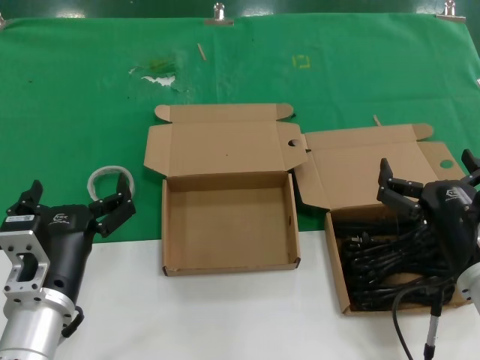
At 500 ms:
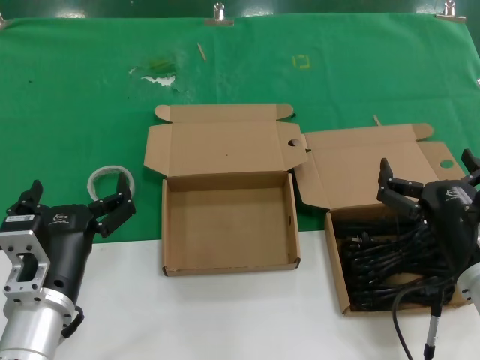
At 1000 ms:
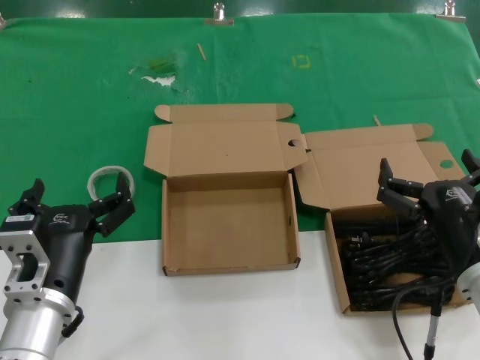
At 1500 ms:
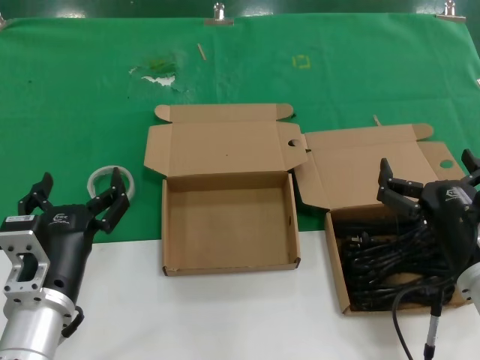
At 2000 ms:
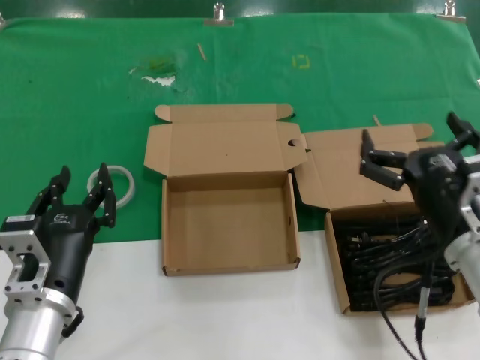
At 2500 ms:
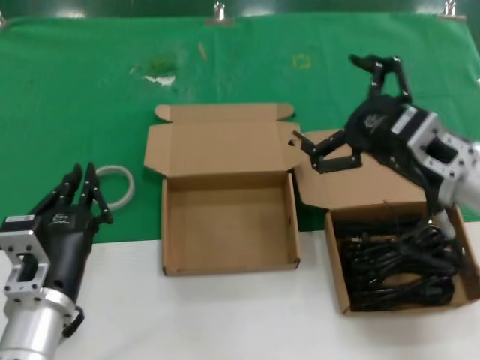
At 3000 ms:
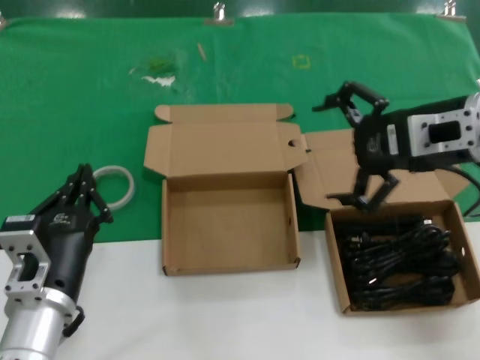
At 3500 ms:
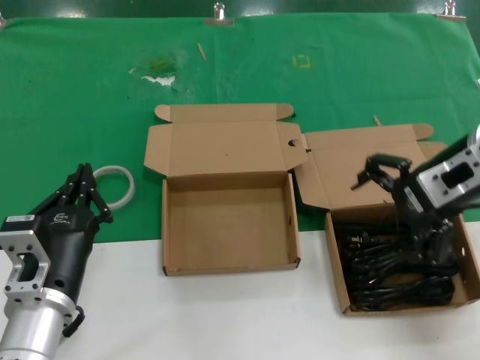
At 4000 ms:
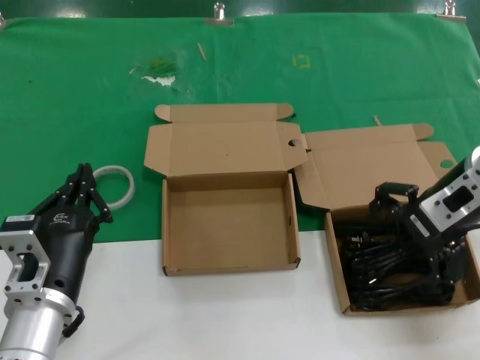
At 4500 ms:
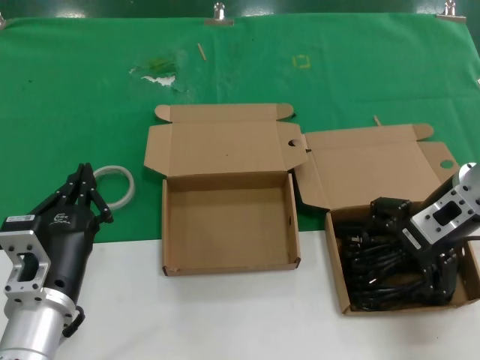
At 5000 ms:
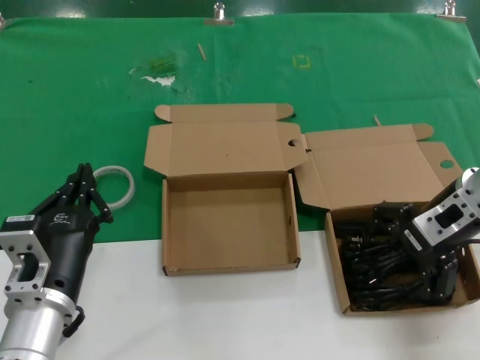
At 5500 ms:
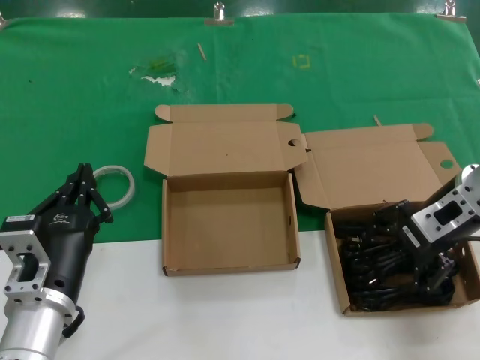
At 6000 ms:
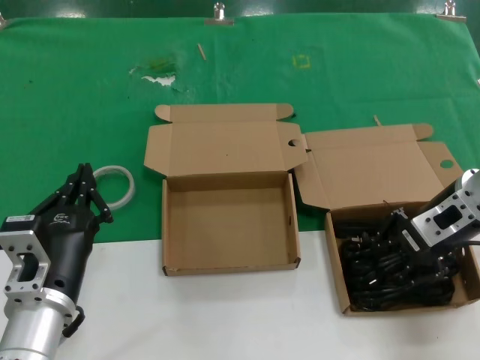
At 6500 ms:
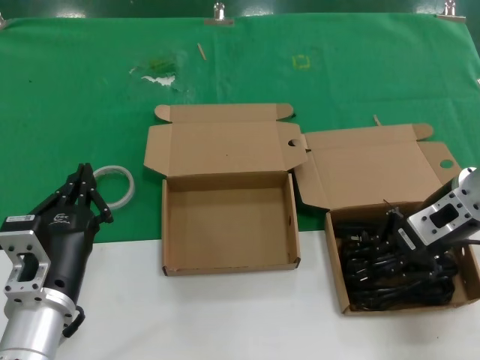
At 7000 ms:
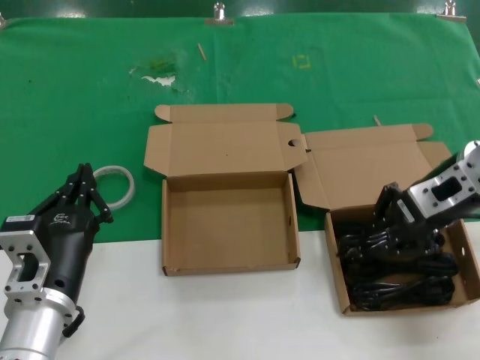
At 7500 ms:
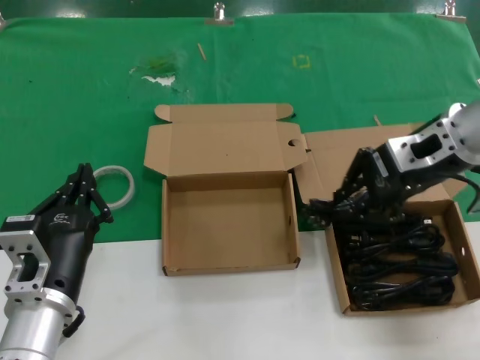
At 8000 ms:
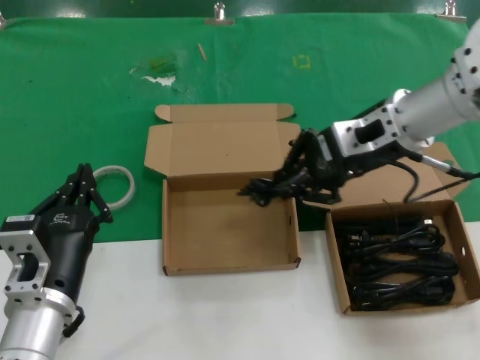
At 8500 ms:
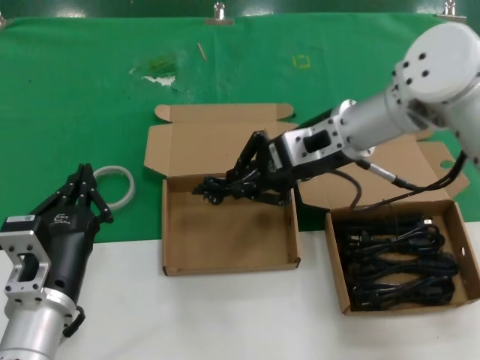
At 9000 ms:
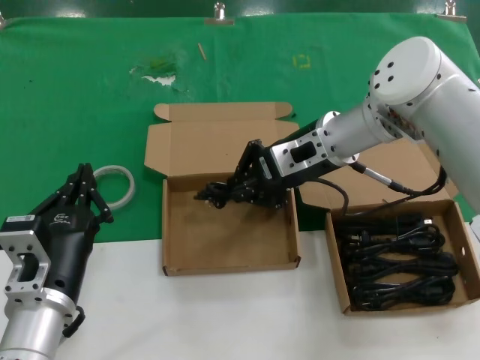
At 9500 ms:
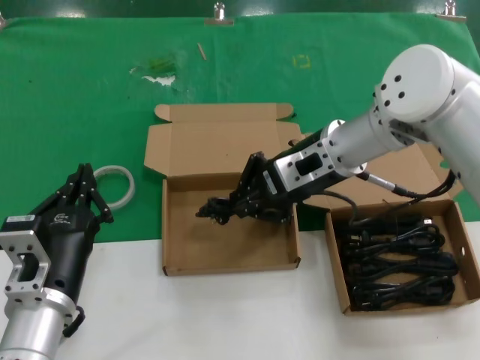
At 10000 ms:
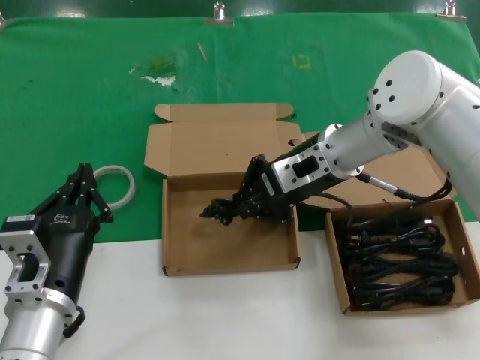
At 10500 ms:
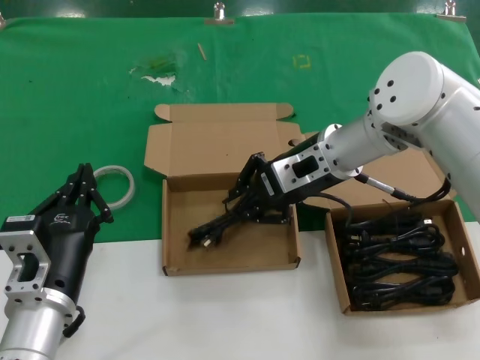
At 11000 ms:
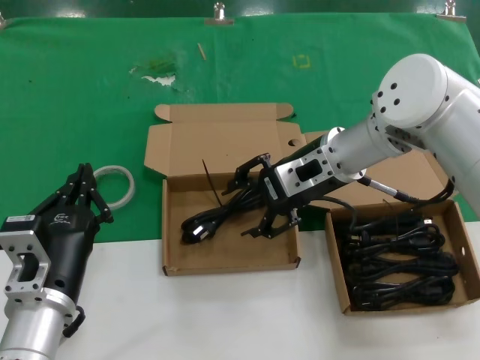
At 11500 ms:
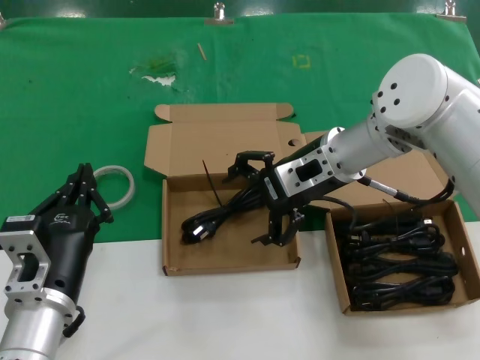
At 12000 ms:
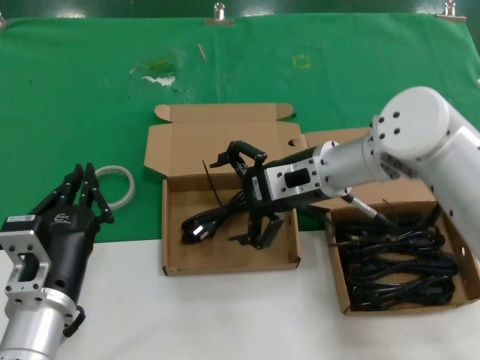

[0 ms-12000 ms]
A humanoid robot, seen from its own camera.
Task of the whole recording: take the parts from the box containing them and put them into an empty box.
Step, 0 ms to 6000 ms: Grasp the data cable.
Step, 6500 ms to 10500 ms: Place the data cable in the another box.
0 ms to 2000 ms: The hands make only small movements.
2000 ms to 4000 ms: The right hand moves forward, upward and to the right, about 20 cm.
4000 ms to 6000 ms: There are only small adjustments of the hands.
6000 ms to 8000 ms: The right hand travels to the left and upward by some 10 cm.
8000 ms to 10000 ms: The right hand heads downward and to the left, covering about 10 cm.
10000 ms to 12000 ms: The hands move only a little.

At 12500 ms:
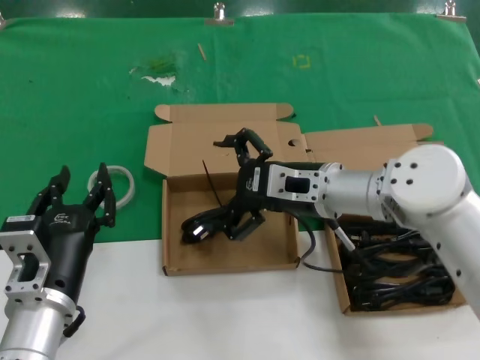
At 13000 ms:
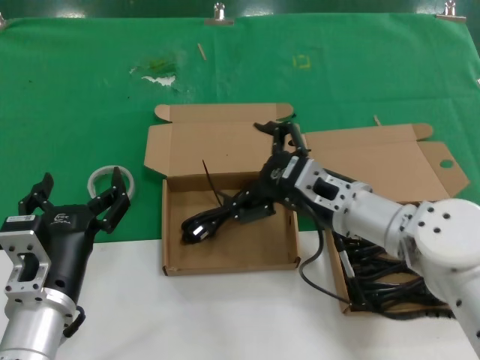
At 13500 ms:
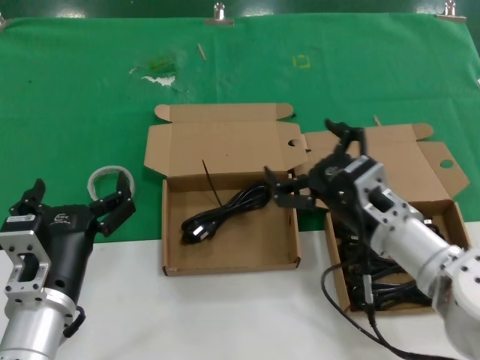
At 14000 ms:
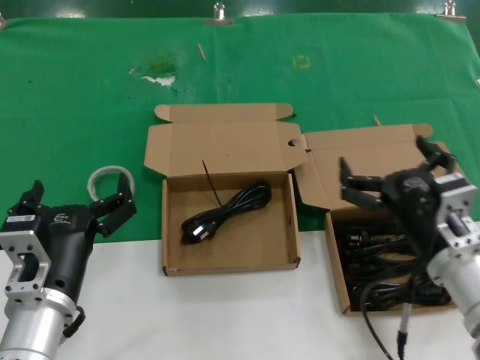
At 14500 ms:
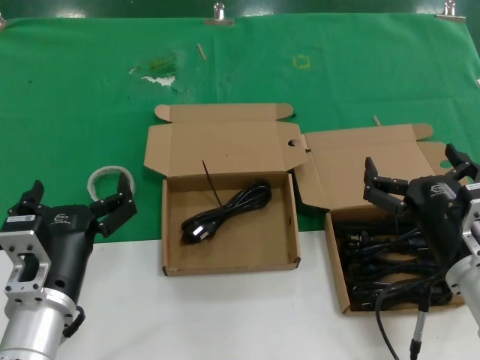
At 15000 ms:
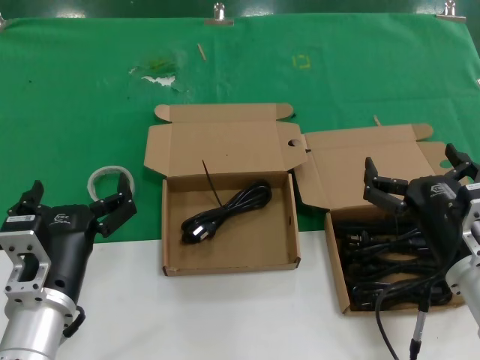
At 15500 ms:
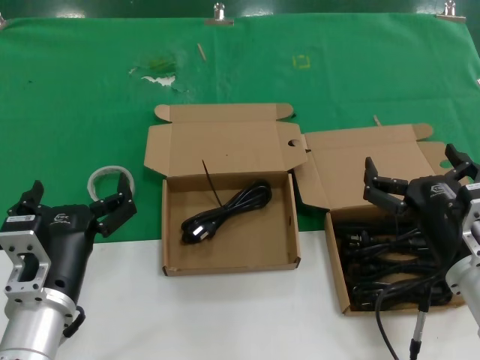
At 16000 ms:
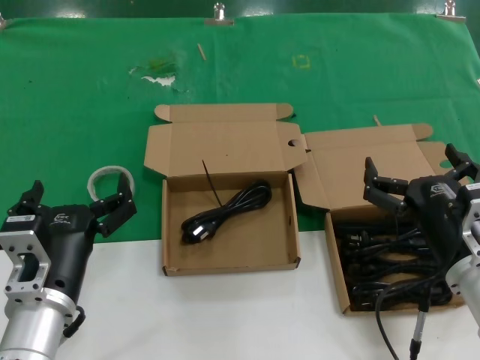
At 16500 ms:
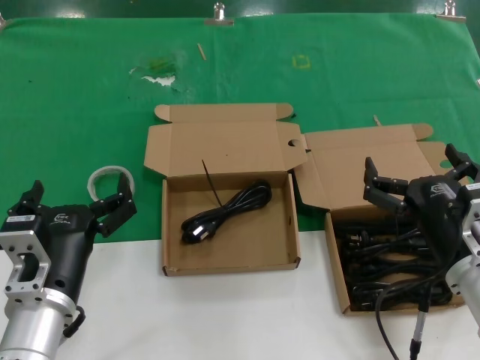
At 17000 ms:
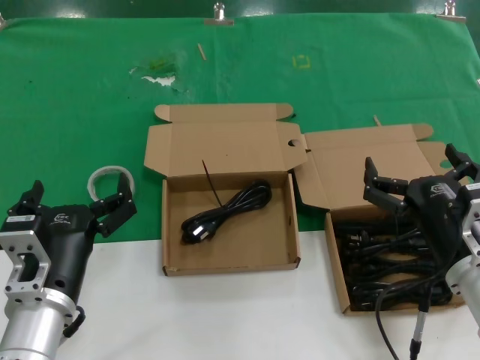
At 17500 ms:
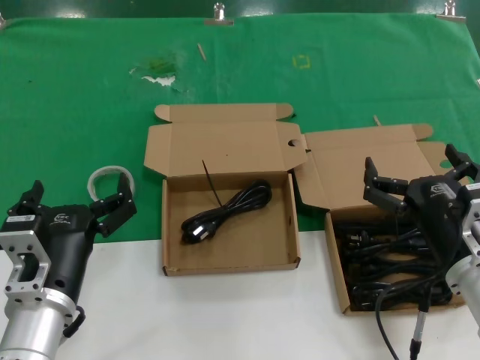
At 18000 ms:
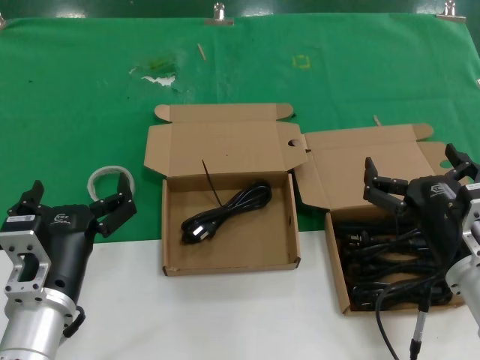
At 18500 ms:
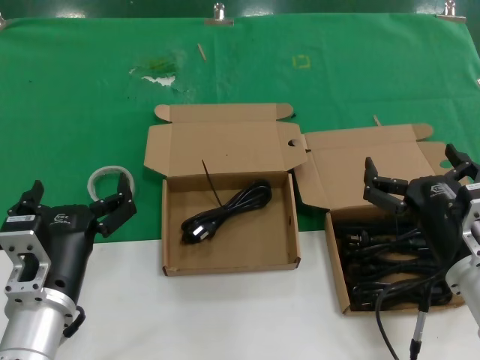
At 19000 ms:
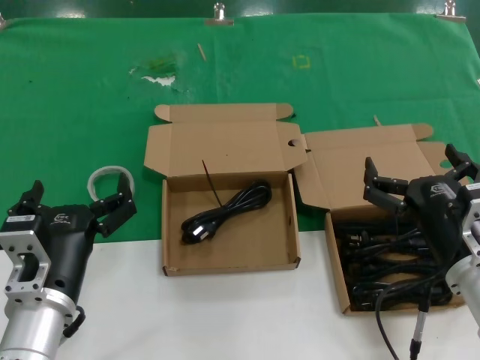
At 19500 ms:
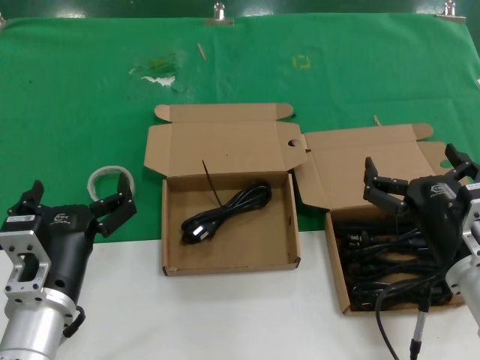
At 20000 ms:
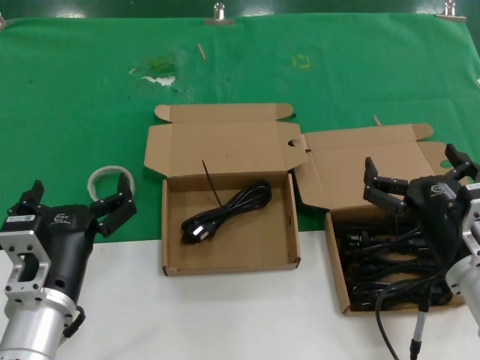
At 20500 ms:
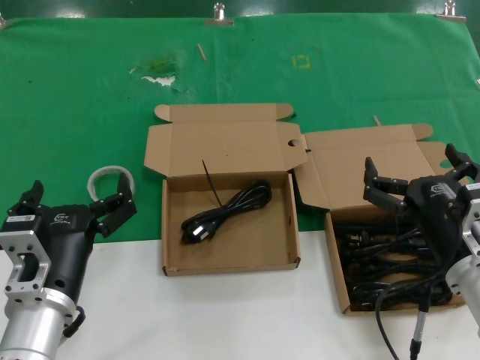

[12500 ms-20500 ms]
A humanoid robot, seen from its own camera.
Task of the whole recording: take the parts from the box containing them and put them into an empty box.
12500 ms to 14500 ms: The right hand is displaced backward and to the right by some 20 cm.
14500 ms to 20500 ms: Both hands stay put.
